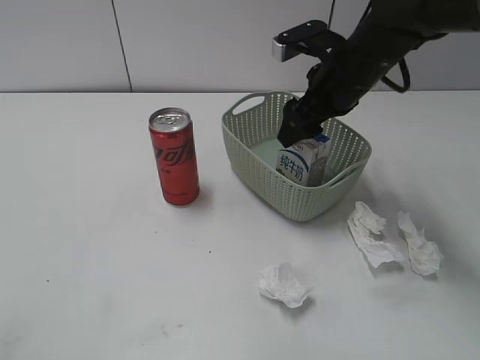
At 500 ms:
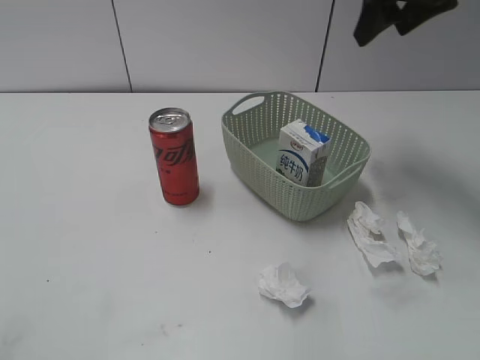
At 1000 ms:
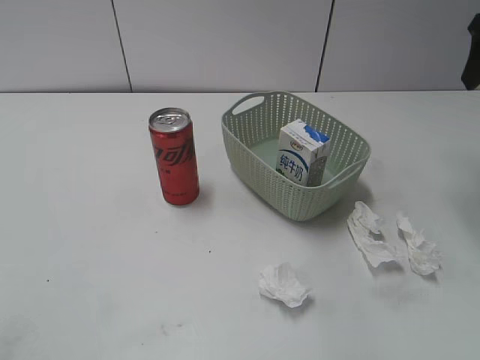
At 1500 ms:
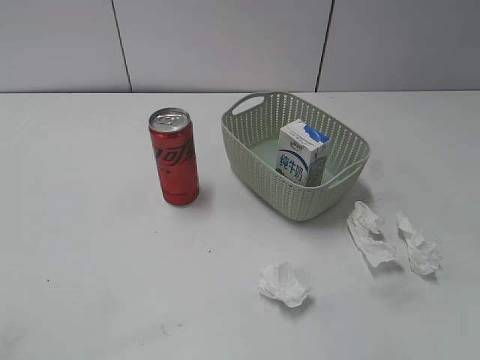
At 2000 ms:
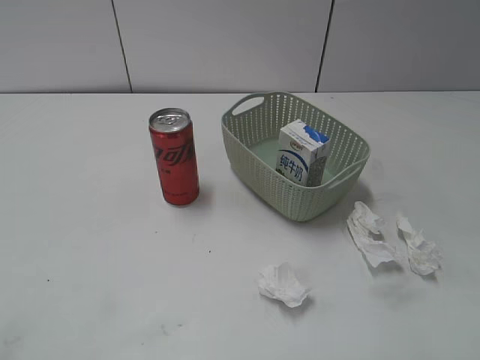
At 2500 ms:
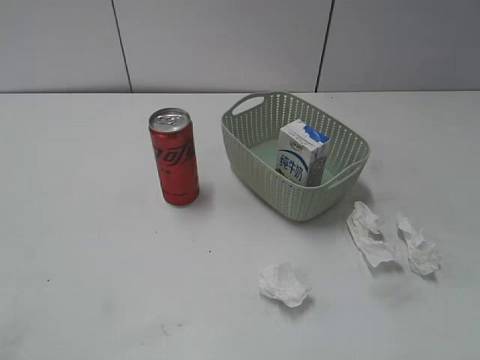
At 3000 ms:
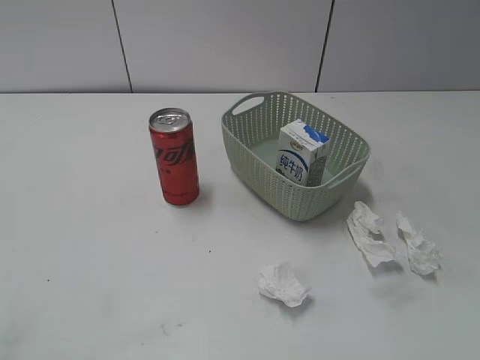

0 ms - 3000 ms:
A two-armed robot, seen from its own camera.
0 ms - 1500 ms: The right gripper moves backward, to the right and upward, roughly 25 cm.

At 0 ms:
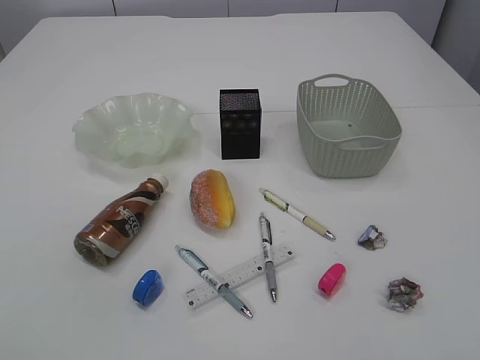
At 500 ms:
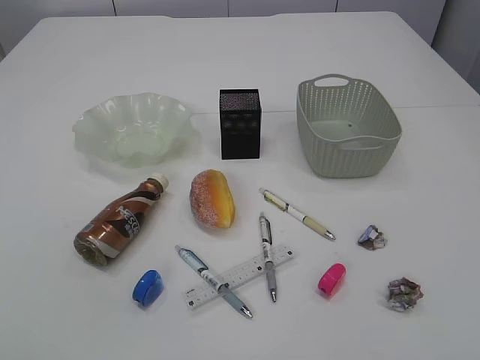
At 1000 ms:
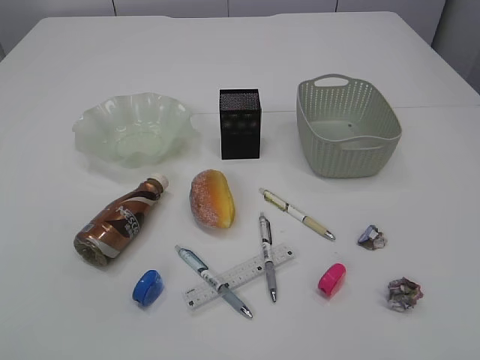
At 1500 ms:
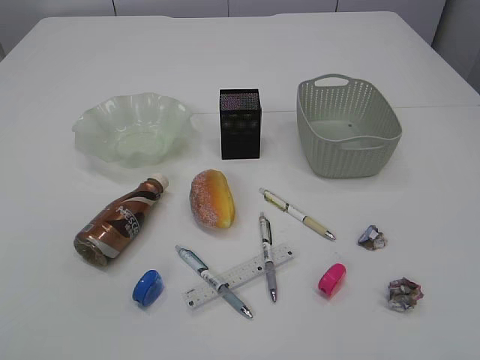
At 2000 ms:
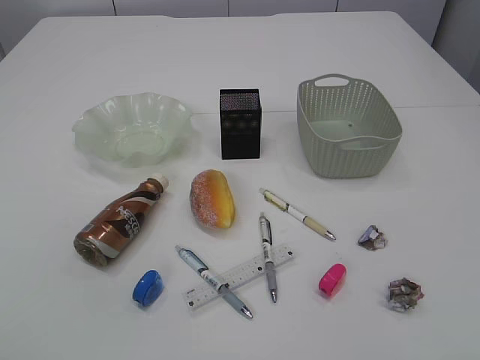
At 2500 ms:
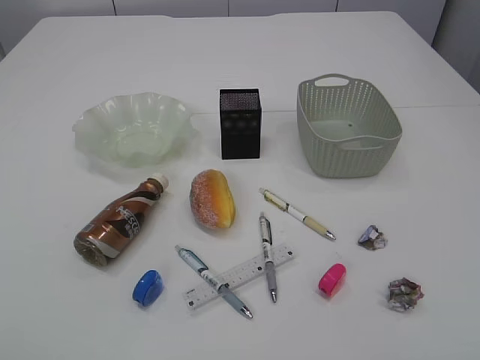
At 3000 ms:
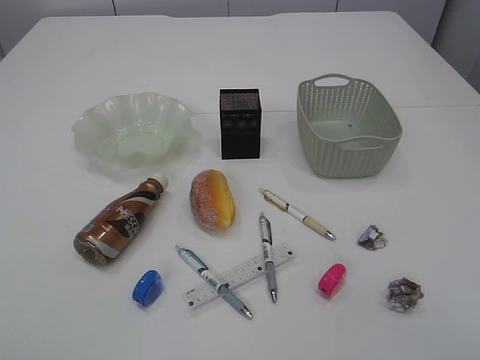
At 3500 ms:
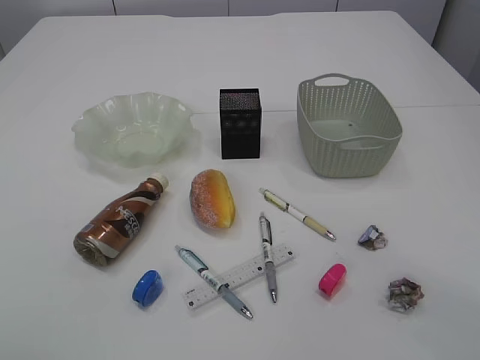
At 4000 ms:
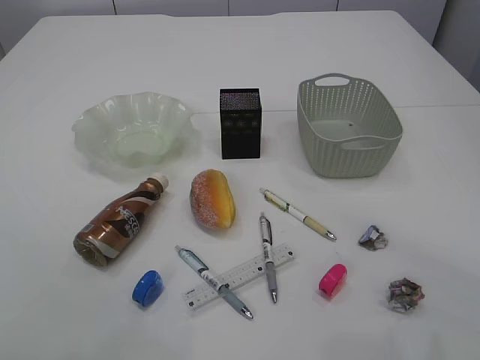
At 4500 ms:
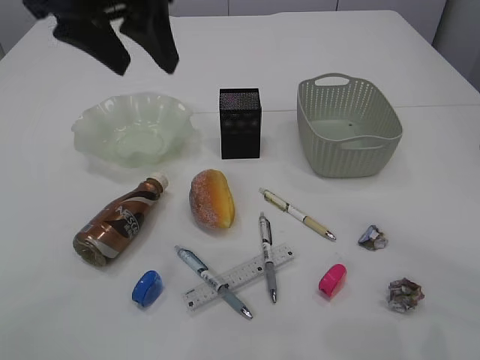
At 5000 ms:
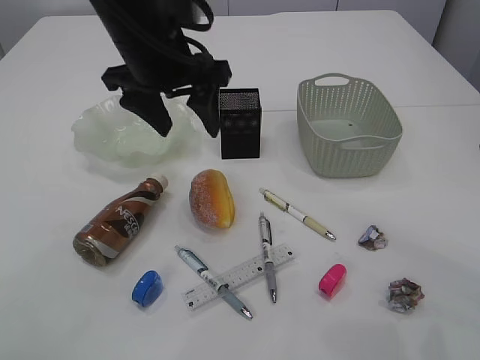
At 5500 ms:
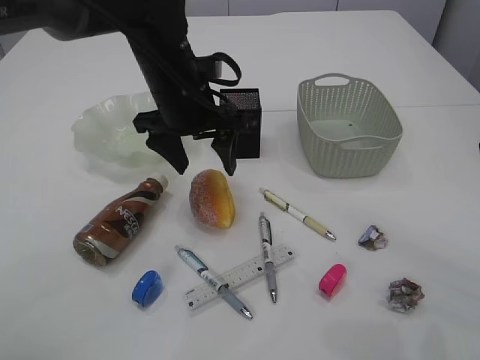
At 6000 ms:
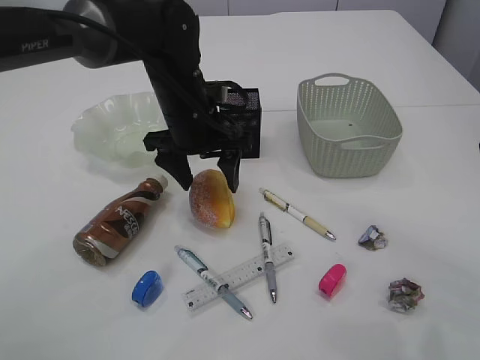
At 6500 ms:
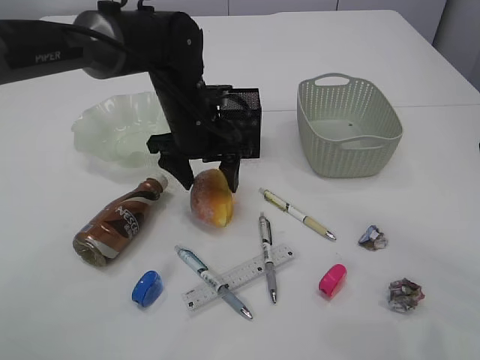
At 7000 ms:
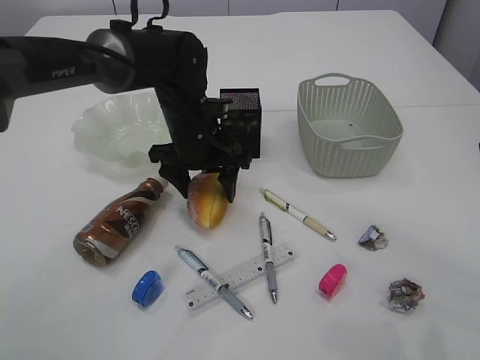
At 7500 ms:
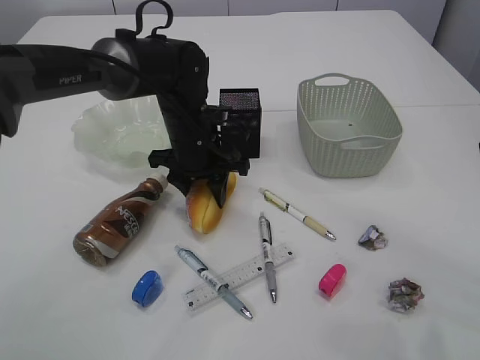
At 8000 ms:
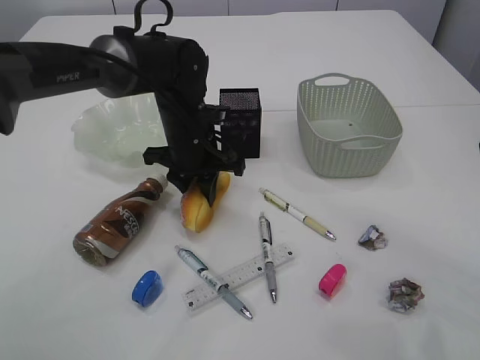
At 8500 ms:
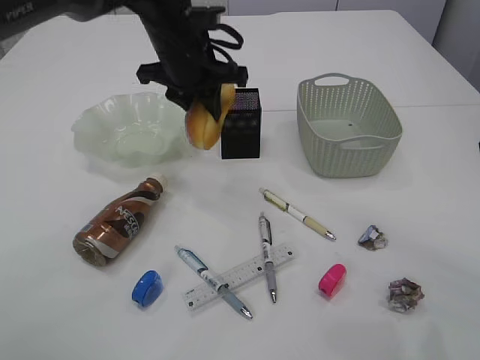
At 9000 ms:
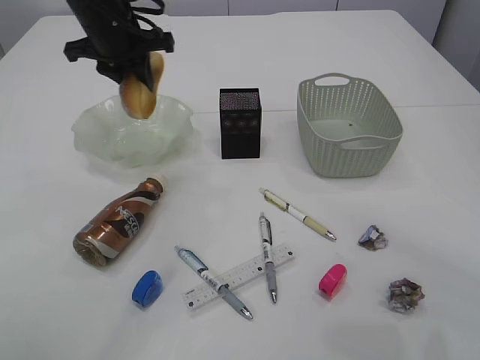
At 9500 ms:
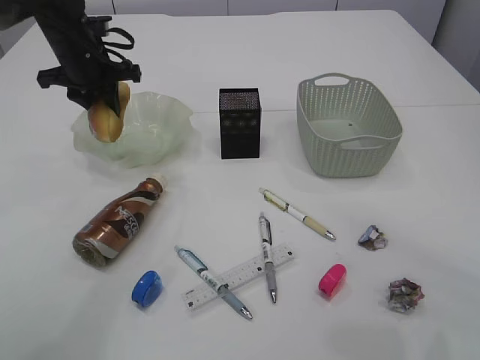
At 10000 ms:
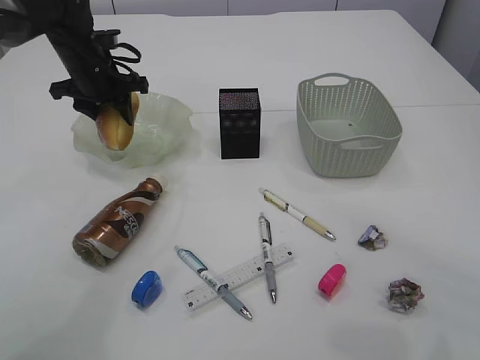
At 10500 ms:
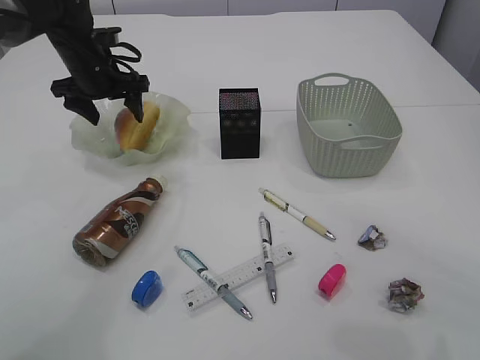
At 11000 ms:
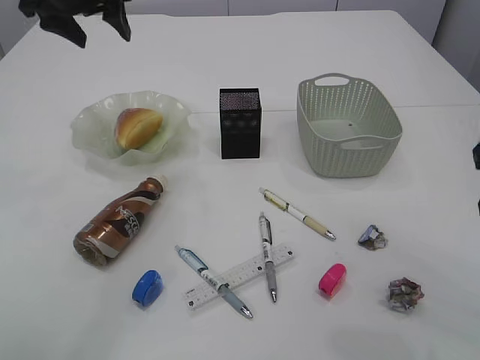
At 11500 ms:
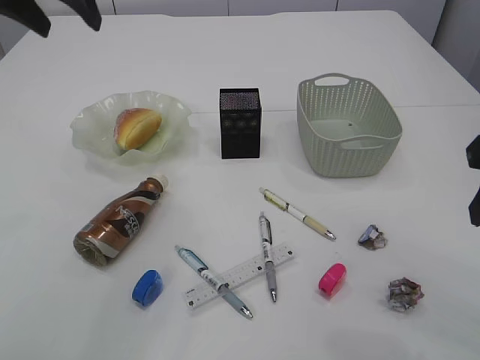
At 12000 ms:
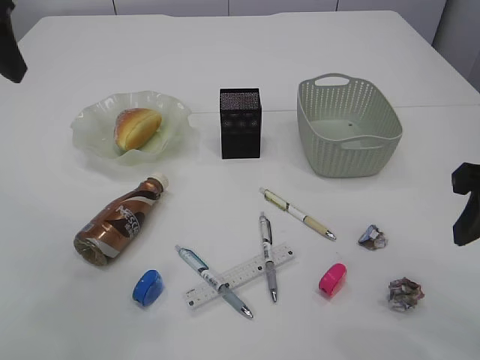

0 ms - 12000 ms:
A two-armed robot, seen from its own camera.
Step, 8500 ms - 10500 ms: place the bread in the plate.
4000 ms - 6000 ms: The left gripper heads downward, to the right and forward, covering about 35 cm, and opens.
6000 ms - 8000 ms: The left gripper closes.
8000 ms - 10000 ms: The left gripper goes some 20 cm to the left and forward.
10000 ms - 12000 ms: The left gripper goes about 25 cm backward and upward, and opens its fingers.

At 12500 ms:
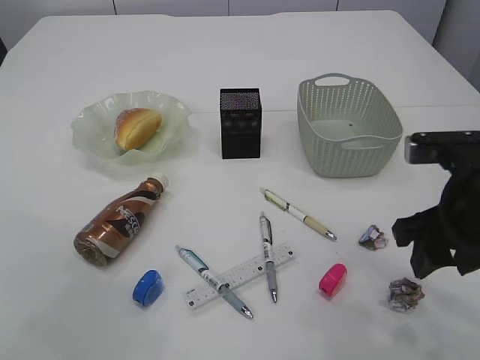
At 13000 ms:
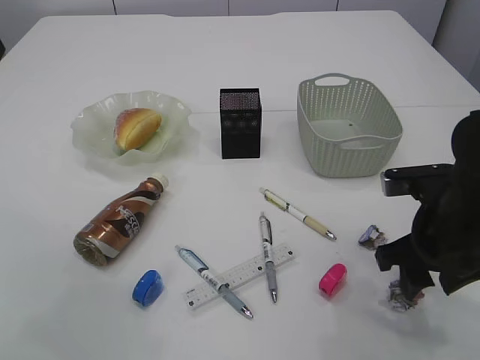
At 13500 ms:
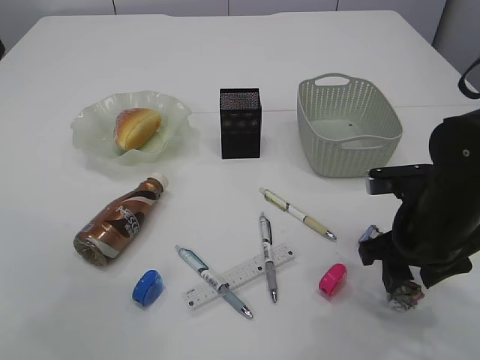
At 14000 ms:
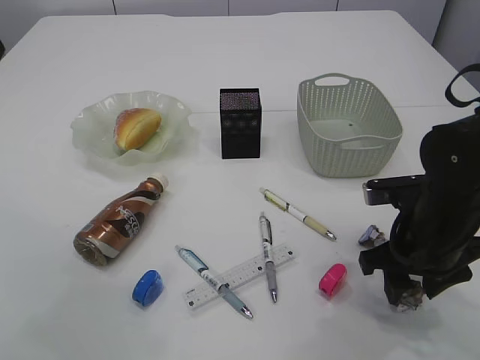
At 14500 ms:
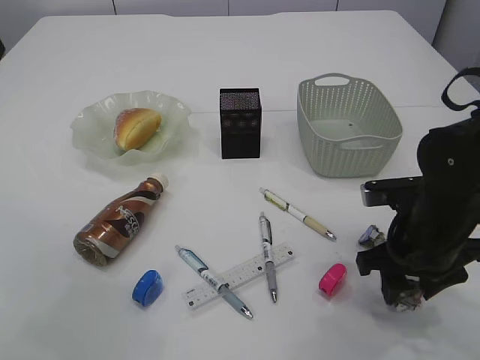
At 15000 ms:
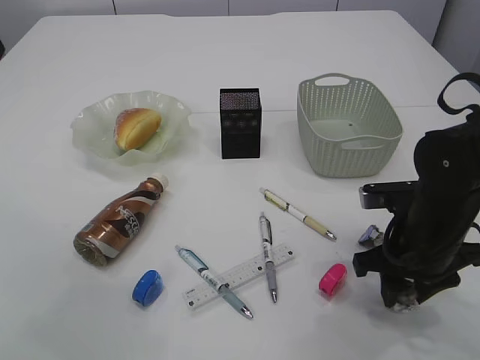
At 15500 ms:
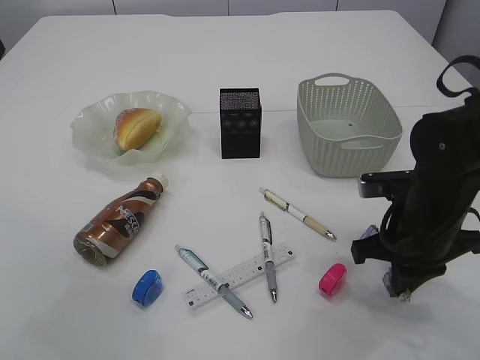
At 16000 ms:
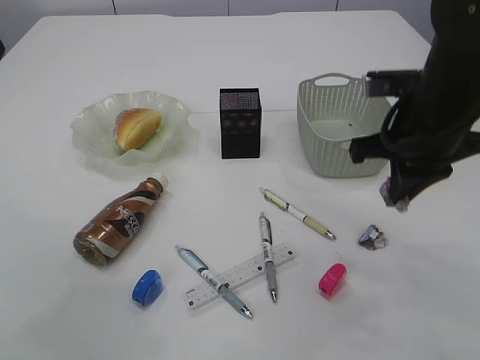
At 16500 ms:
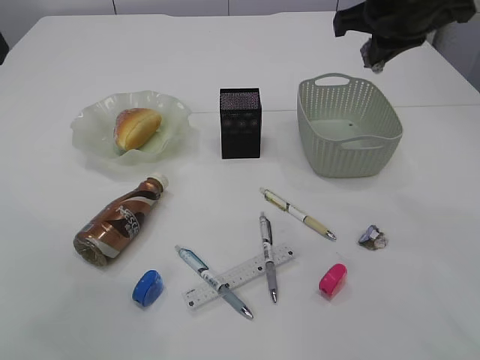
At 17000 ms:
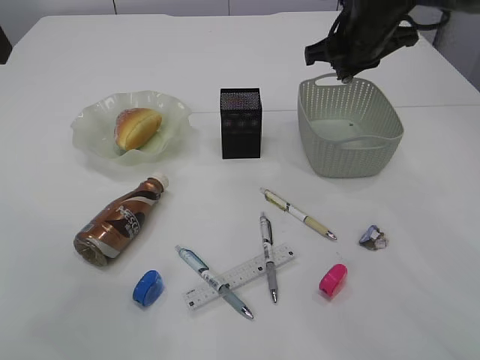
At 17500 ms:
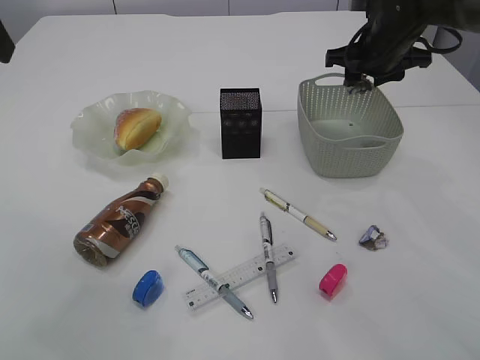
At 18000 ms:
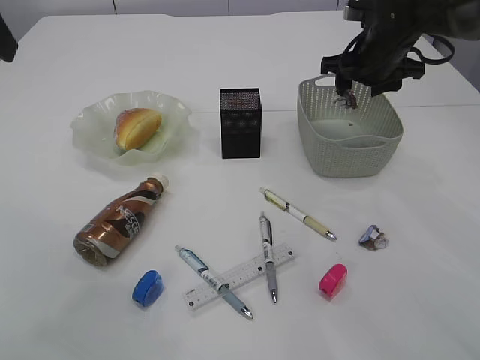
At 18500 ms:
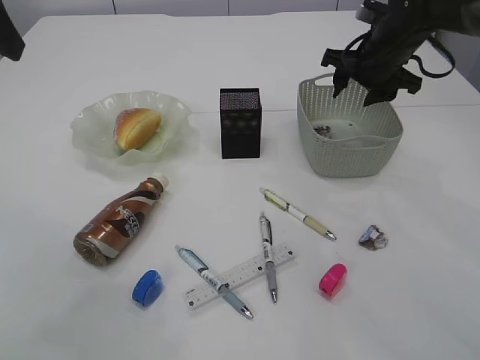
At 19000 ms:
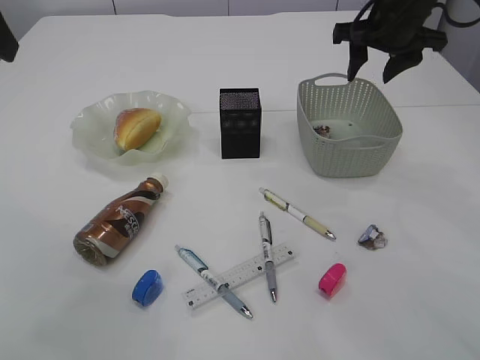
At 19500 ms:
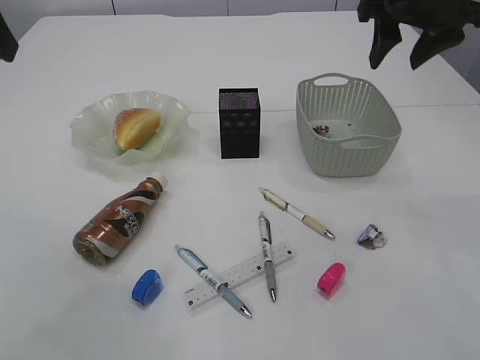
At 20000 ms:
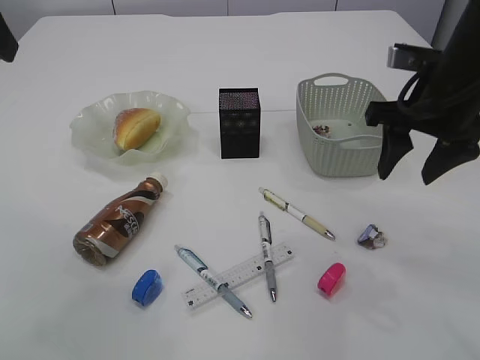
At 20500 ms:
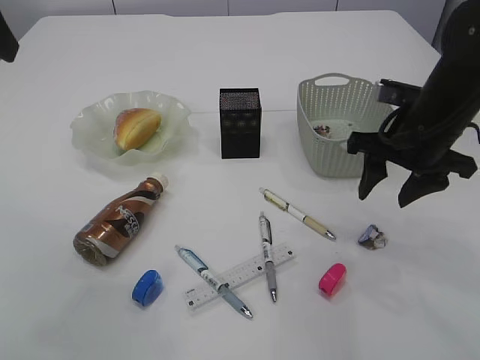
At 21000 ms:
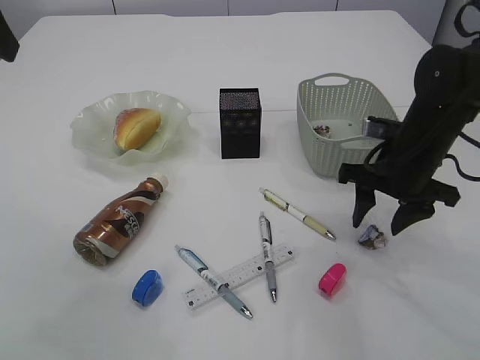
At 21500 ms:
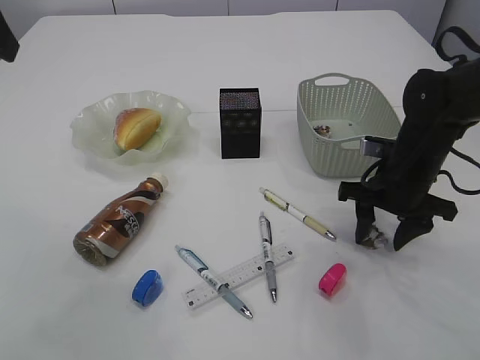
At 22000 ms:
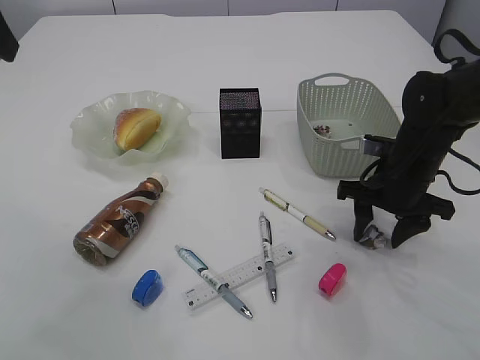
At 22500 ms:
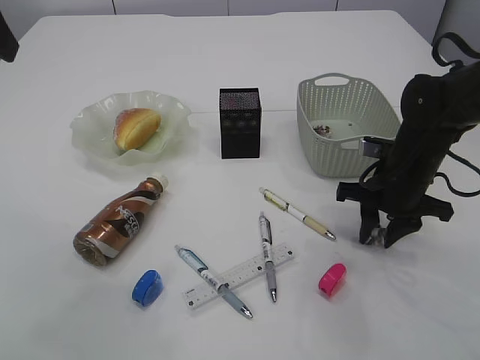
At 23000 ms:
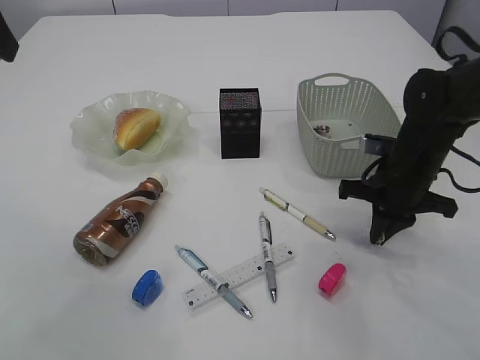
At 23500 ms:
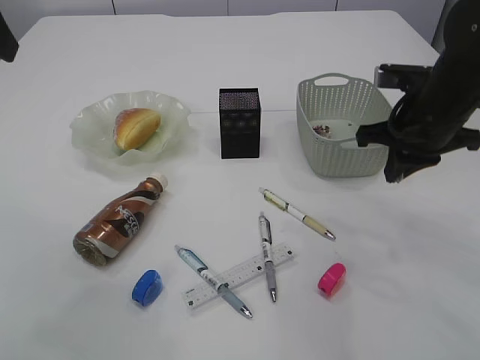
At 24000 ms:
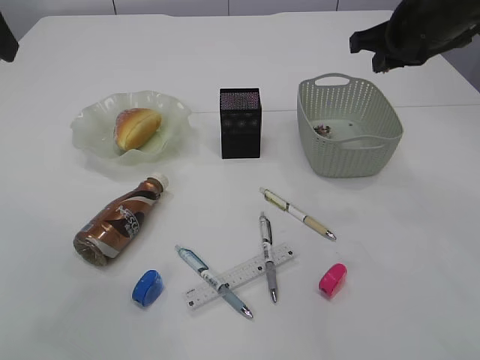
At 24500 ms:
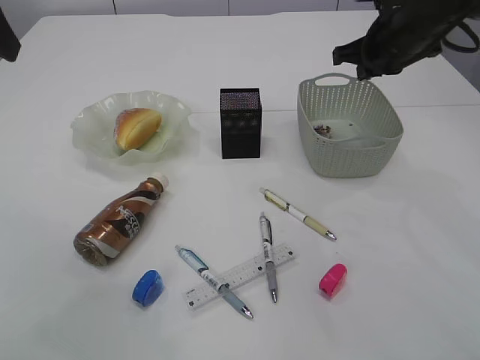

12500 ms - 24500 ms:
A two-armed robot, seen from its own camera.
Step, 12500 ms - 15500 ms: Pick up the waste paper.
Step, 16000 ms - 18500 ms: Place the waste paper in the basket.
Step, 19000 ms - 23000 ms: Pick up the waste paper.
12500 ms - 14500 ms: The right gripper heads downward, covering some 10 cm.
14500 ms - 16500 ms: The right gripper goes approximately 25 cm upward and forward, and closes up.
16500 ms - 18500 ms: The right gripper goes some 15 cm downward and forward, and opens.
18500 ms - 20500 ms: The right gripper goes some 15 cm backward.
20500 ms - 22500 ms: The right gripper goes roughly 10 cm downward.
22500 ms - 24500 ms: The right gripper goes roughly 15 cm upward and forward, and closes.
